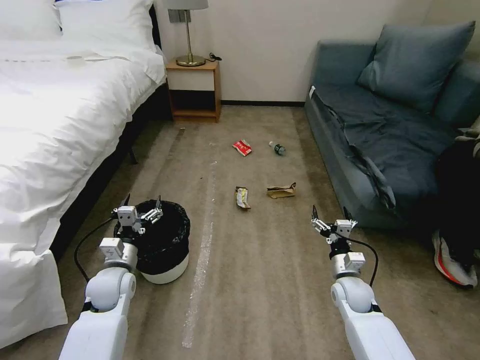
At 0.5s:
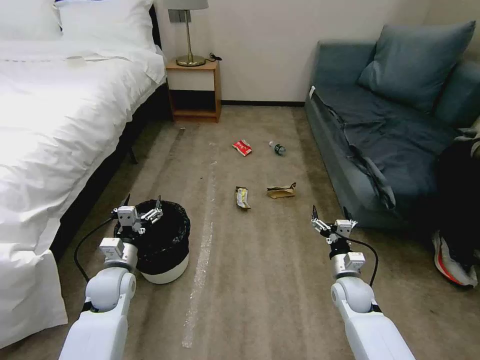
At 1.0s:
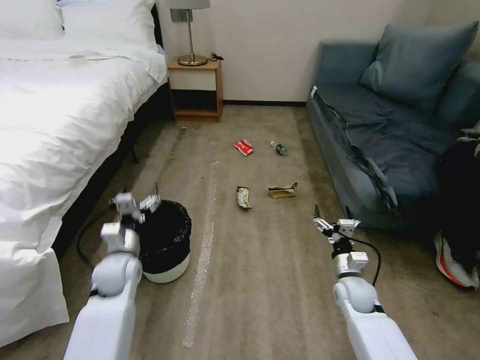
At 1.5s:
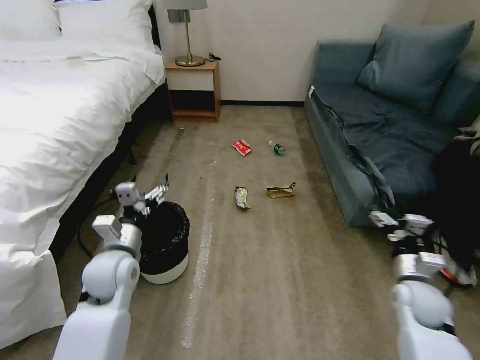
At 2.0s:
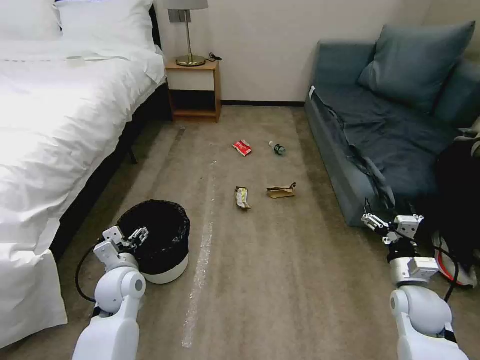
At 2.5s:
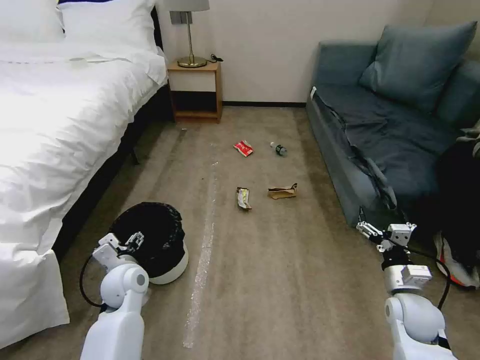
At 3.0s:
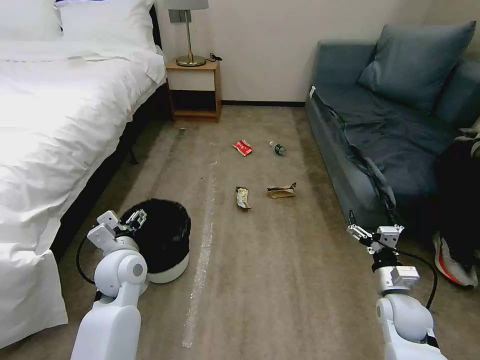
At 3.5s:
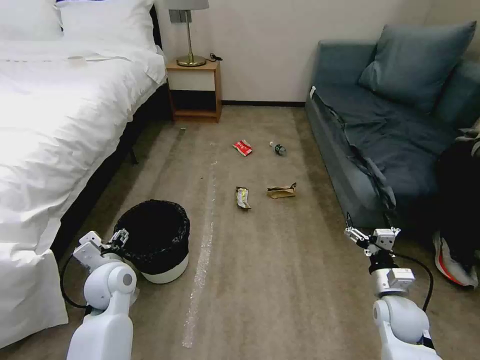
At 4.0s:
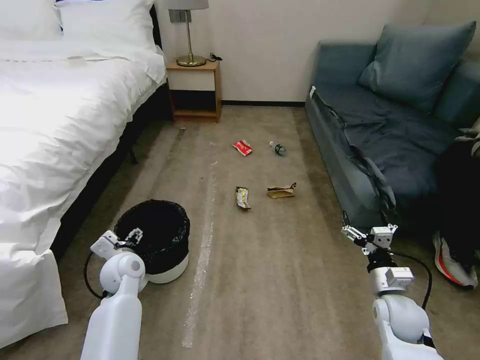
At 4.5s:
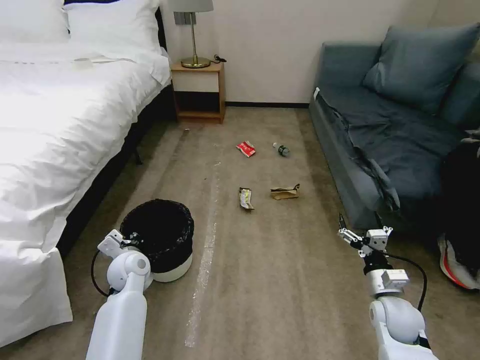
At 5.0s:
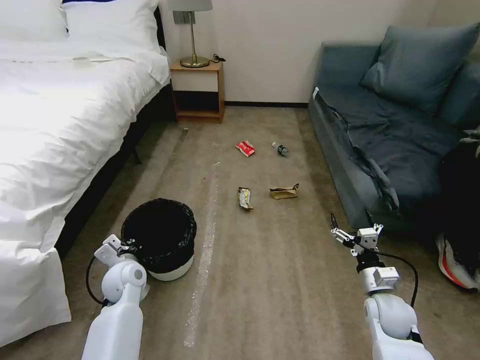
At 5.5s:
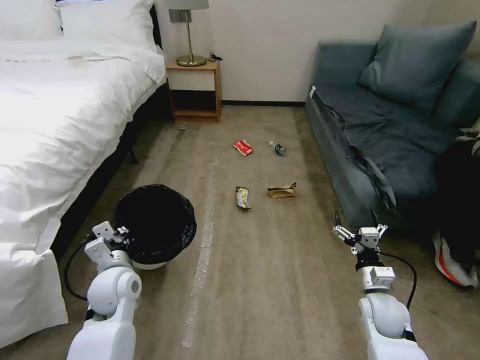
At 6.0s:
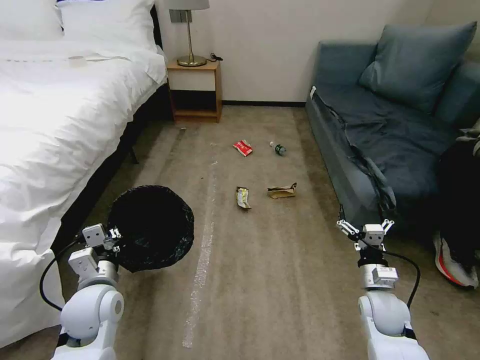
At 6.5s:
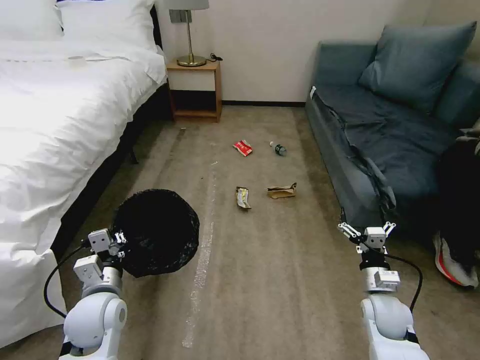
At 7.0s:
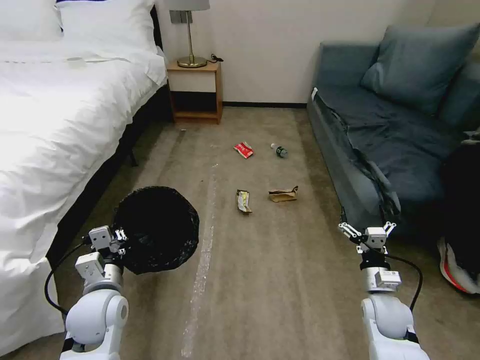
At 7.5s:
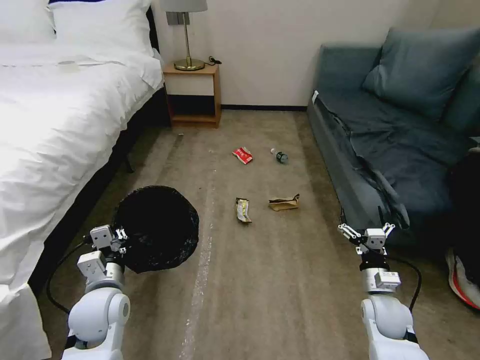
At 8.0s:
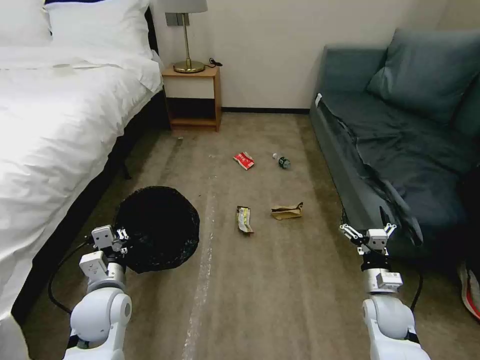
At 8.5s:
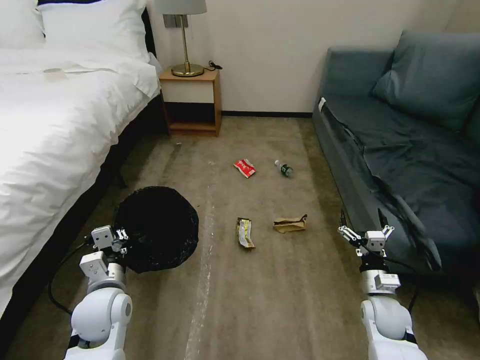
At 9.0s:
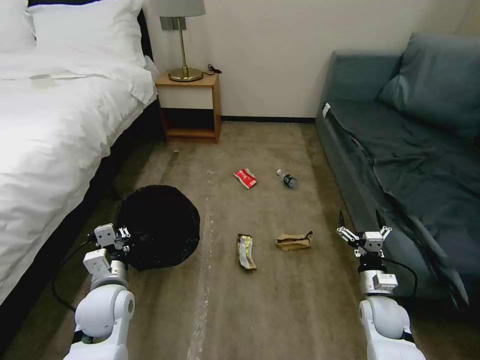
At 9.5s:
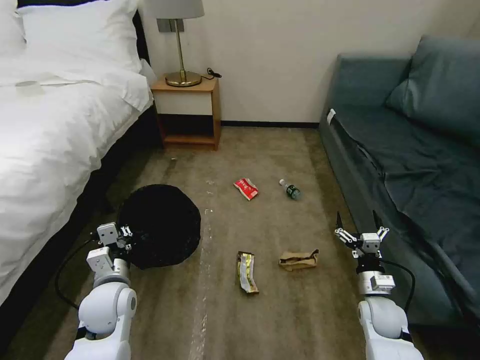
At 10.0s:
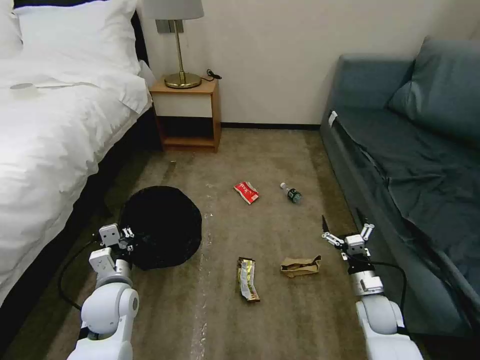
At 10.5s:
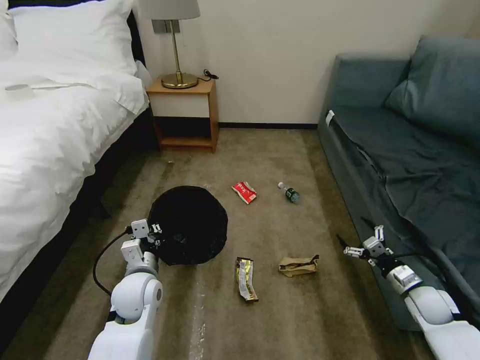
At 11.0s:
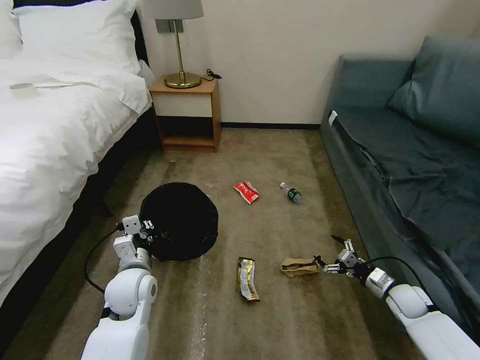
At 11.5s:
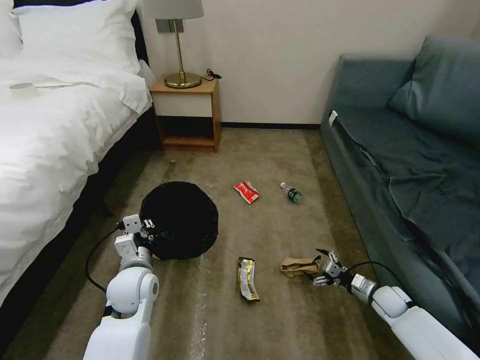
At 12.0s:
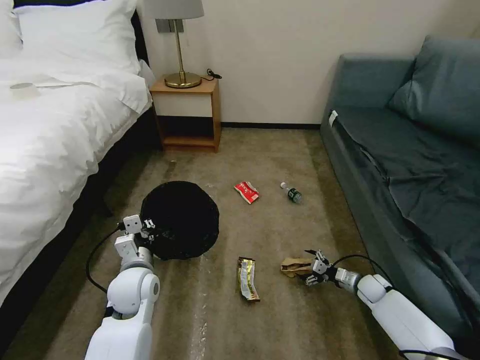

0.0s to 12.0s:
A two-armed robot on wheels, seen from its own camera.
Task of the whole recording: Pick up the trash bin, then pick up the garbage on the floor and place it into the trash bin.
2.0s to 4.0s: The left gripper shifts by some 5 cm.
4.0s to 6.0s: The left gripper is displaced backward and upward by some 10 cm, and closes up.
10.0s to 12.0s: The right gripper is displaced forward, downward and to the right by some 15 cm. The left gripper shifts by roughly 5 cm.

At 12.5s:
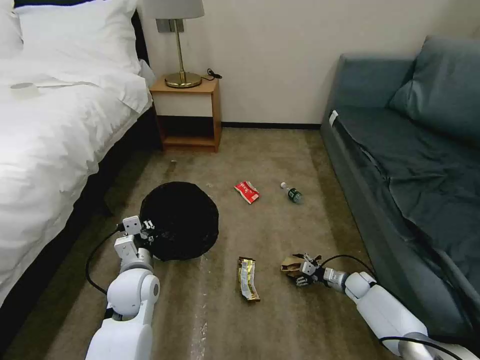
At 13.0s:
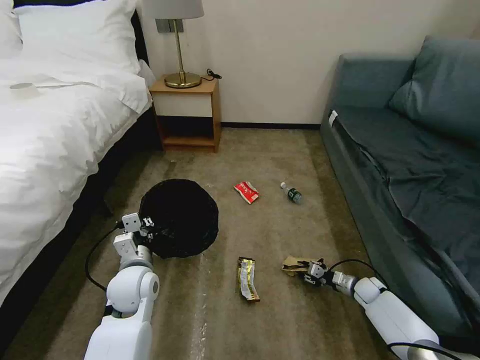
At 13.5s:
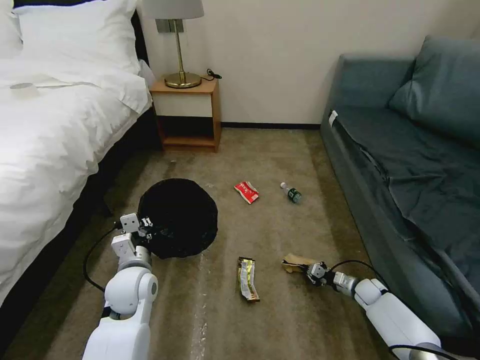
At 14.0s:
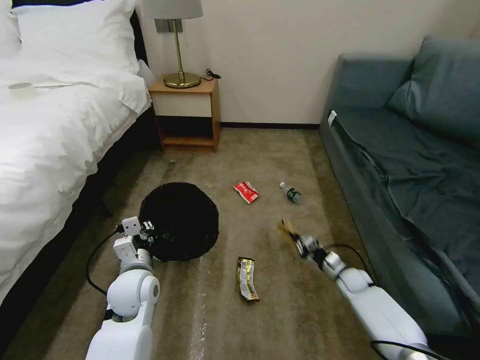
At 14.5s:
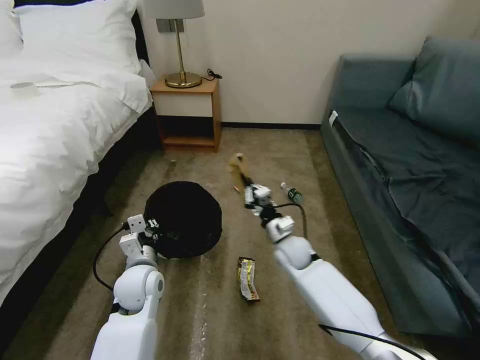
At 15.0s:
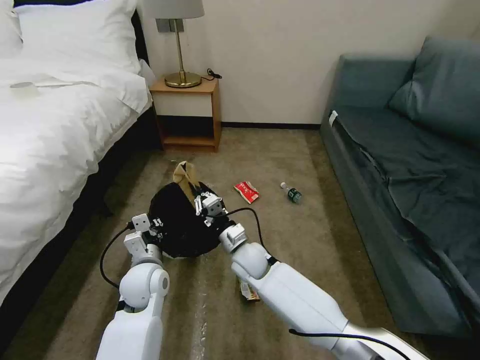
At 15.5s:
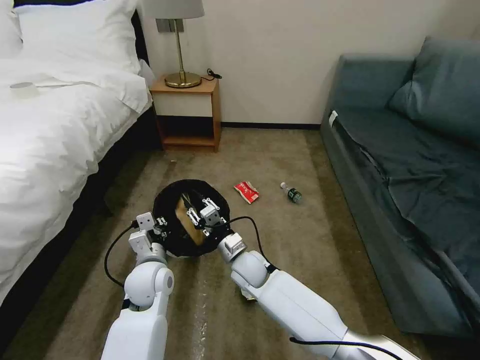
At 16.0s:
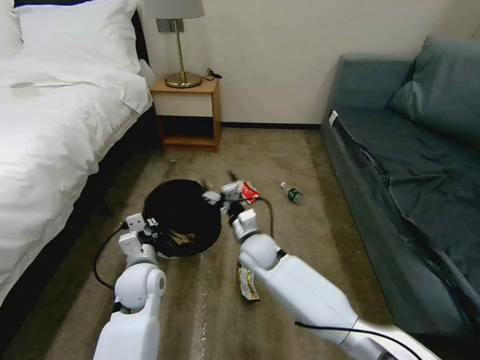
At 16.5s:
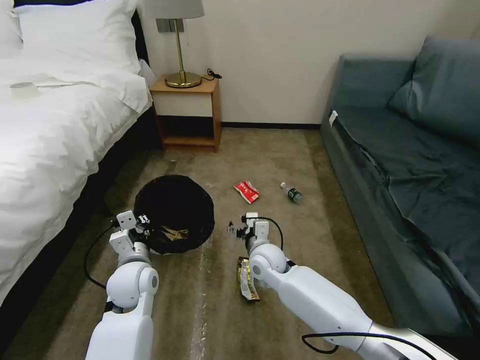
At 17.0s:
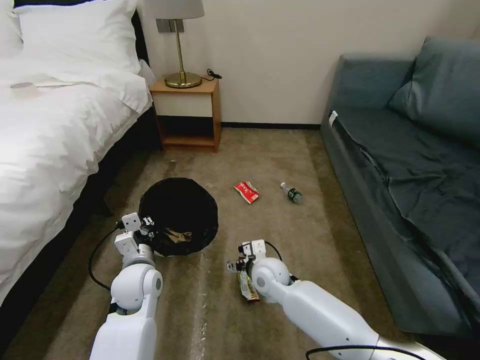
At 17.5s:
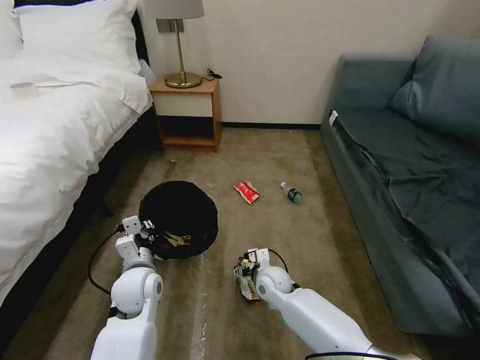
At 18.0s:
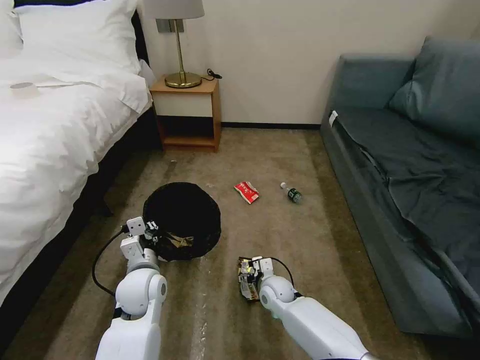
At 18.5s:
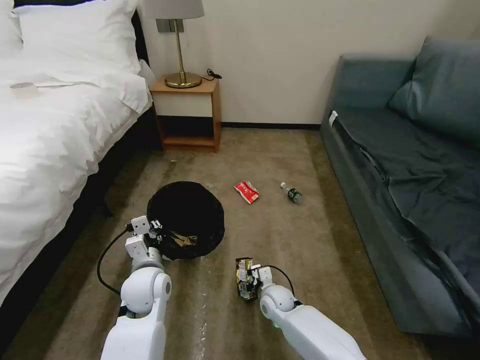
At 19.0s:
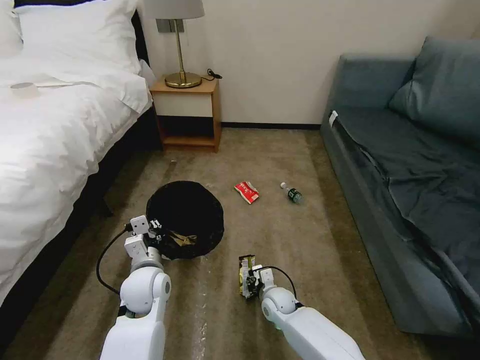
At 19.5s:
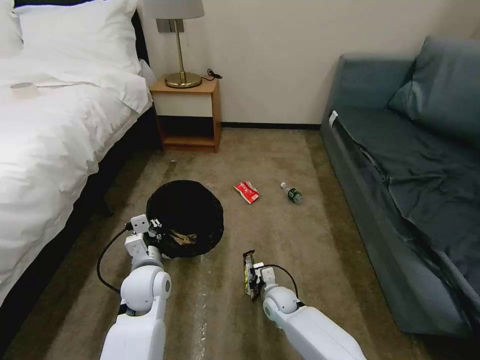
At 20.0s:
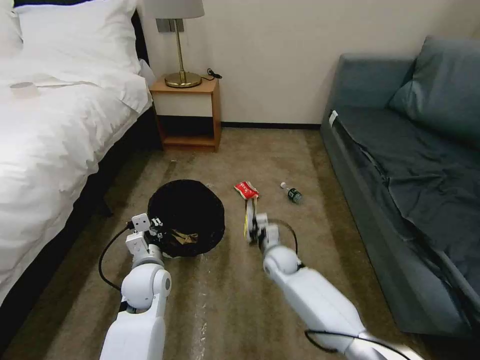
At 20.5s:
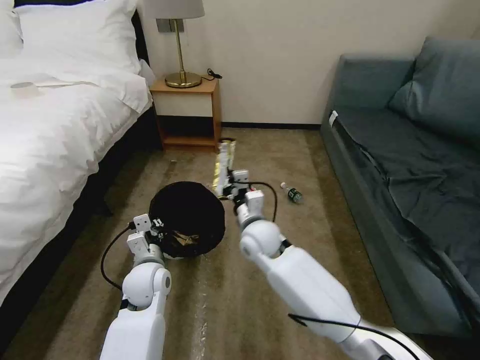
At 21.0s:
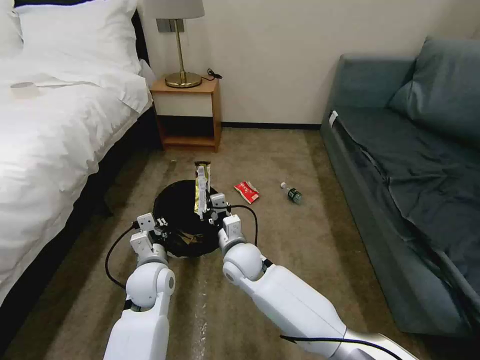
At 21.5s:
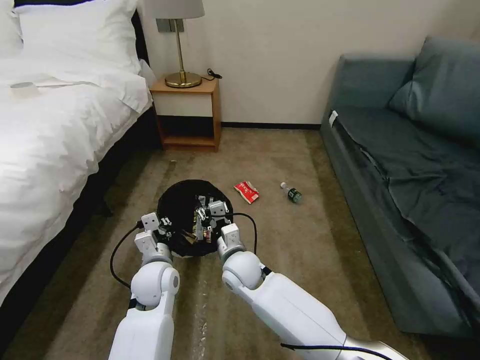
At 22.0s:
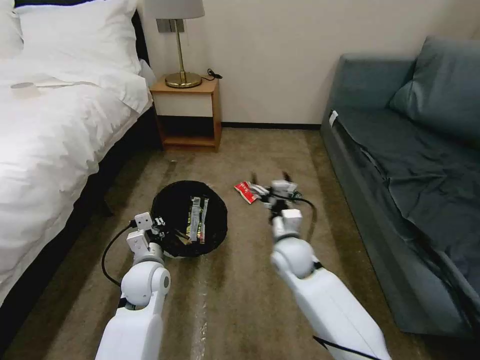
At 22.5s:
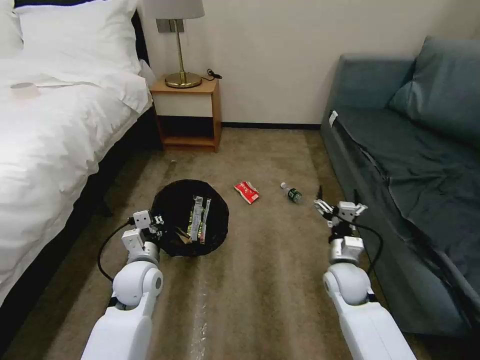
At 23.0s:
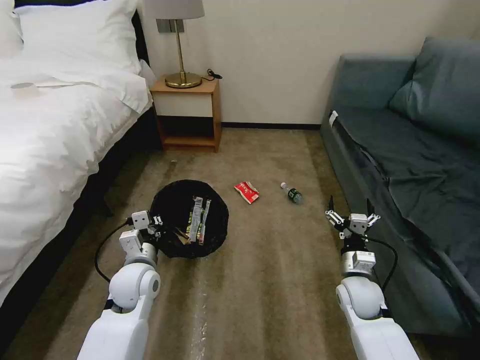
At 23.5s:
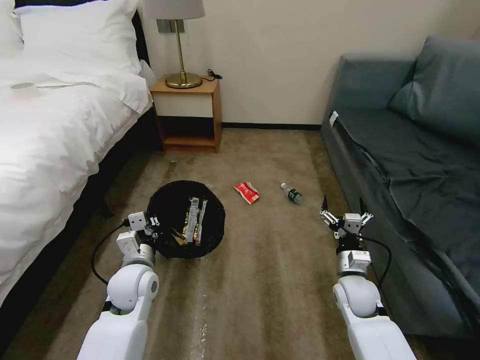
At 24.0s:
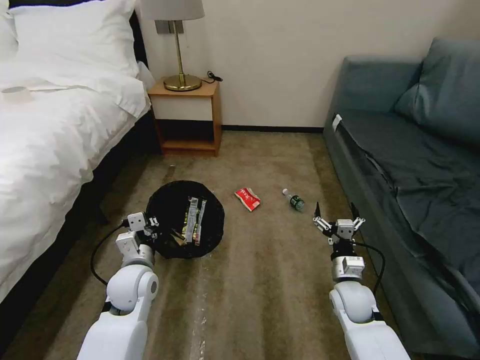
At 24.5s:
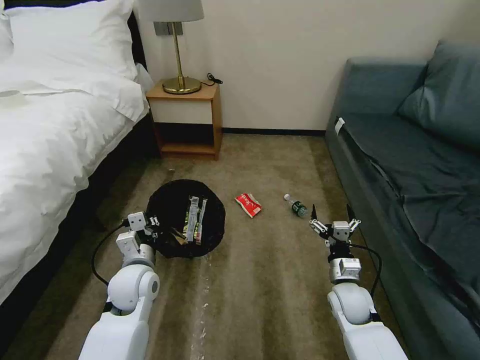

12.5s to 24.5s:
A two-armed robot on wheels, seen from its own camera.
Task of the whole recording: Pick up the trash bin, then pick up the garbage on the floor and place it into the trash bin.
12.5s to 14.5s: The right gripper travels to the left and upward by approximately 30 cm, and closes up.
14.5s to 16.5s: The right gripper goes some 10 cm to the left, and opens.
16.5s to 18.5s: The right gripper goes approximately 15 cm downward.
18.5s to 20.5s: The right gripper goes about 25 cm upward, and closes.
20.5s to 22.5s: The right gripper heads to the right, covering some 20 cm, and opens.
22.5s to 24.5s: The right gripper changes place by about 5 cm.

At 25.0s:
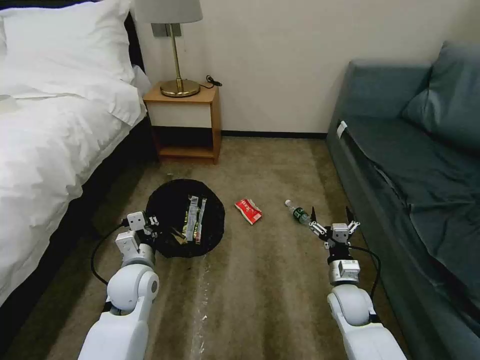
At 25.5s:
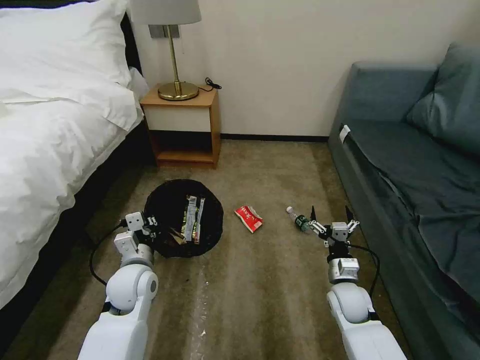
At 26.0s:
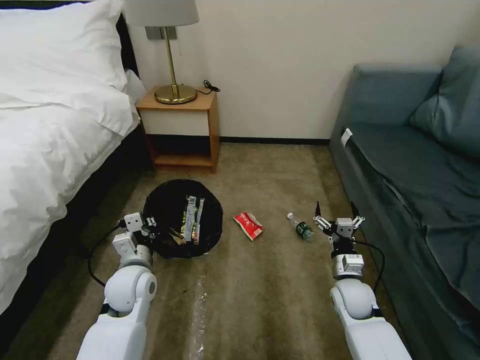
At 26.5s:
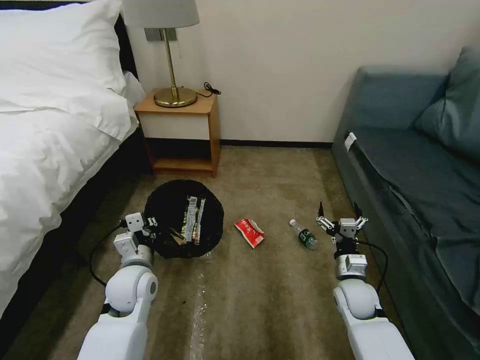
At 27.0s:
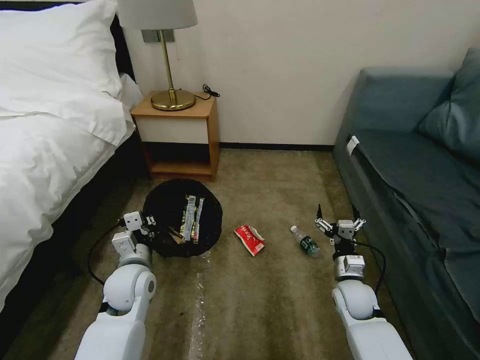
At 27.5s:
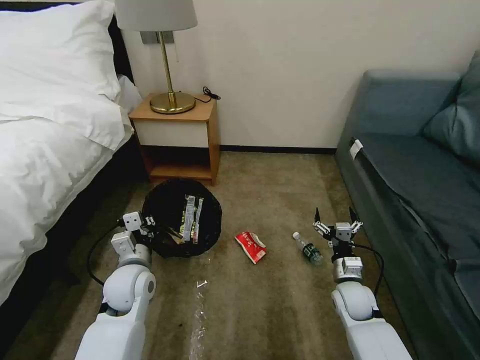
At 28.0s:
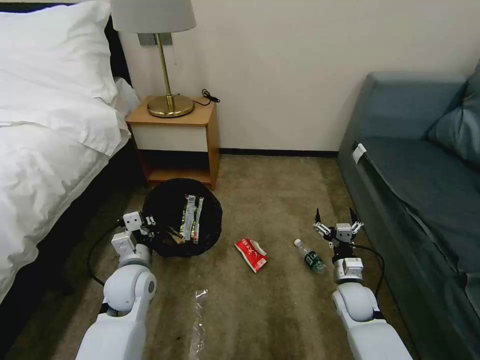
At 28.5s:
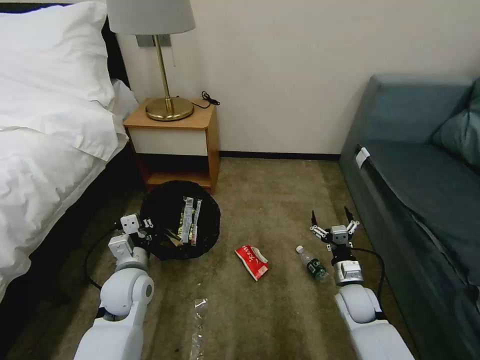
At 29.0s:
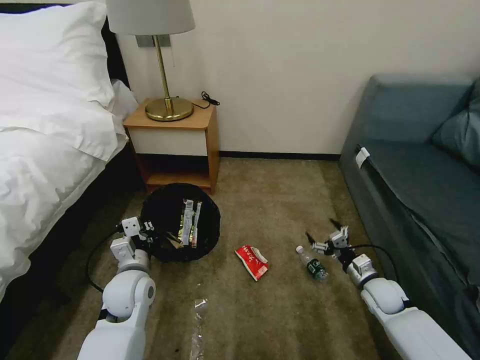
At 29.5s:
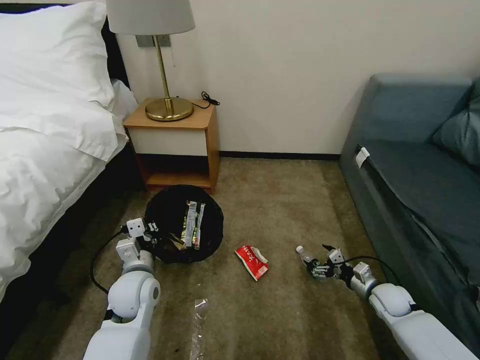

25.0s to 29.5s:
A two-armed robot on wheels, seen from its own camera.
Task of the whole recording: Pick up the trash bin, then pick up the garbage on the floor and place it into the trash bin.
27.0s to 29.5s: The right gripper shifts approximately 10 cm to the right.
